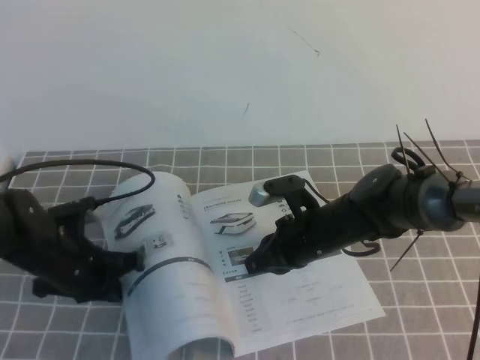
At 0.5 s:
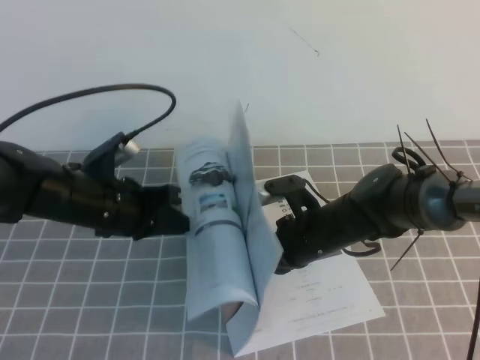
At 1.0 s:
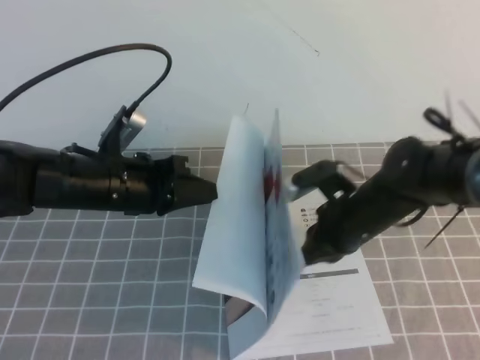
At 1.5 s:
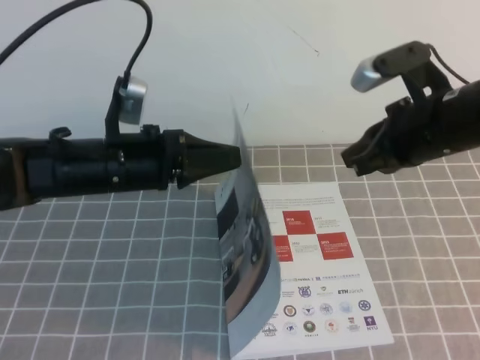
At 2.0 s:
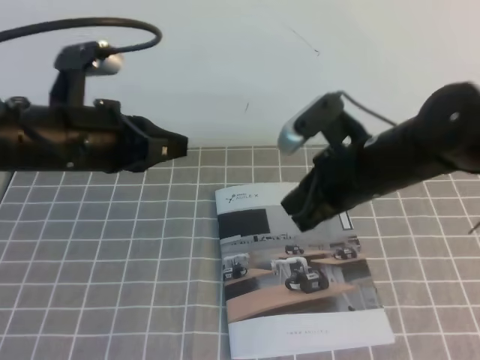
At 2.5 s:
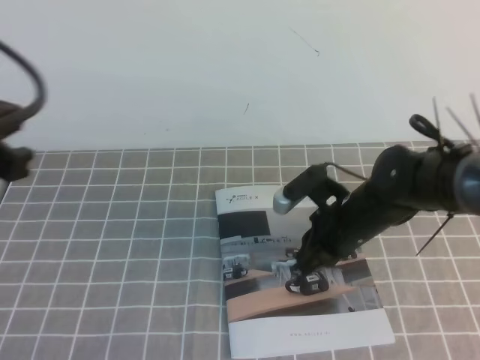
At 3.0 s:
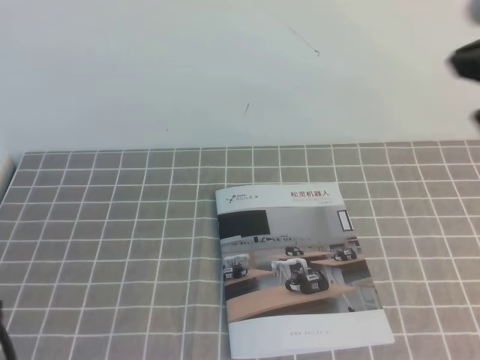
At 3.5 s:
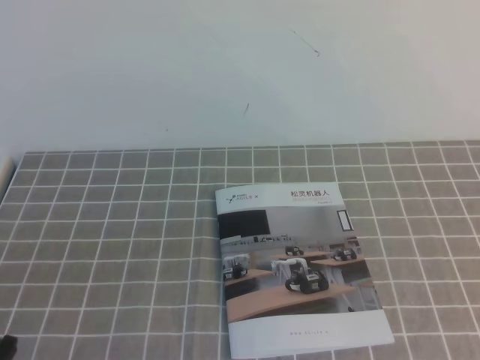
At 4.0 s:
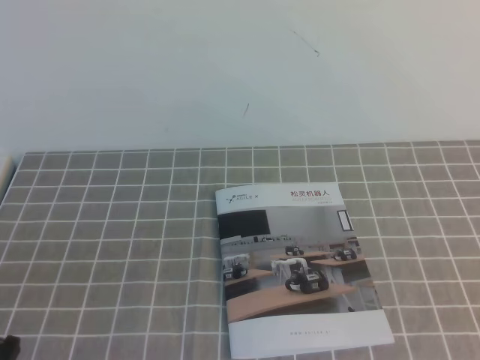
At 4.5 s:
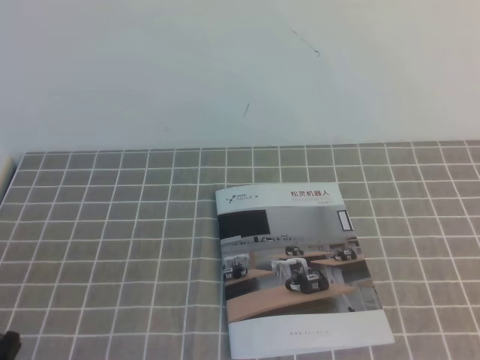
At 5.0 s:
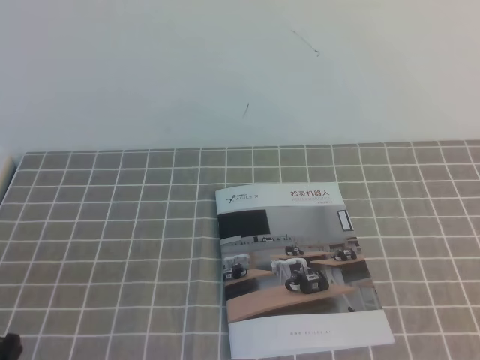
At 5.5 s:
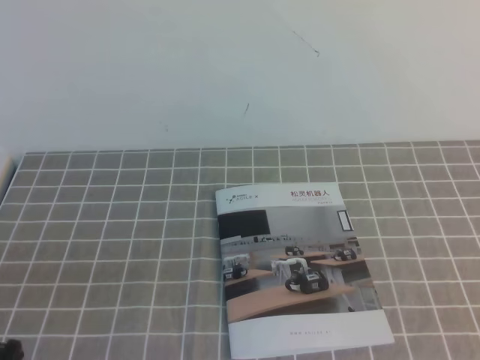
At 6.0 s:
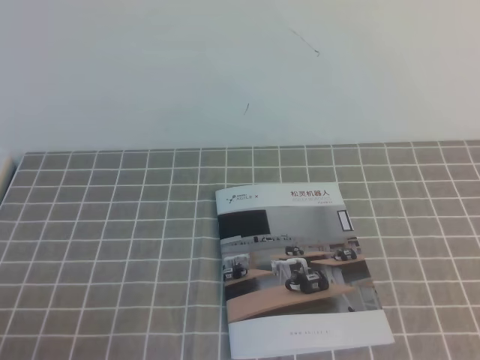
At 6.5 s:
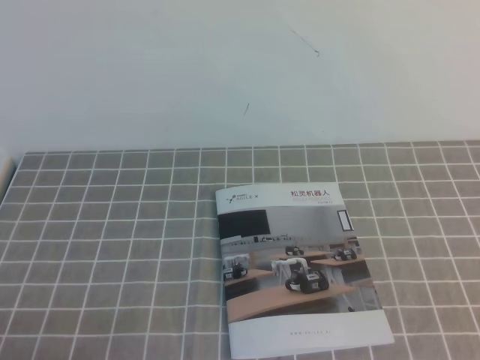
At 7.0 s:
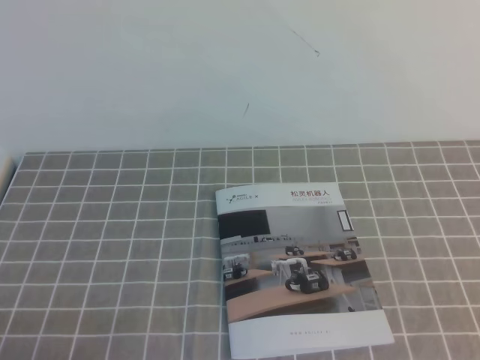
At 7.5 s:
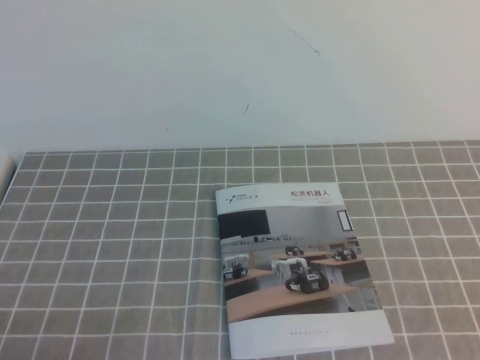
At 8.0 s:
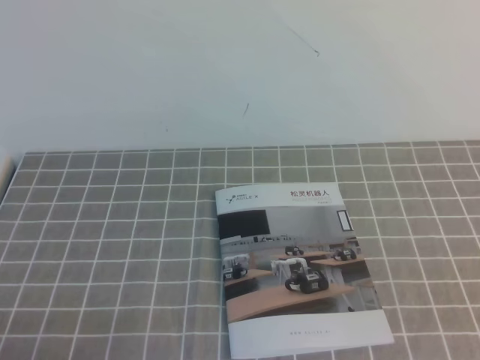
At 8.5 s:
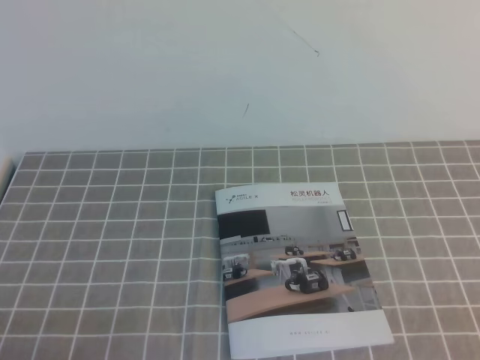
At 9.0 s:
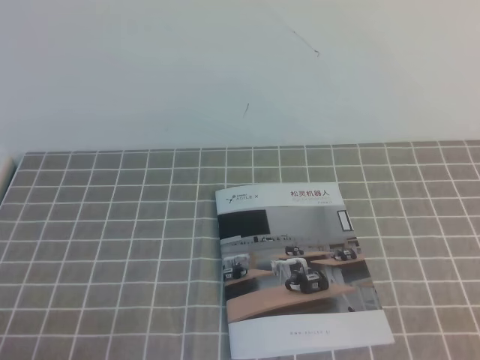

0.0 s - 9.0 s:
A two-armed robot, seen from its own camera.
Task of the whole recording: on the grey tablecloth, hold the book with one hand and close it with the other.
Step, 0.0 s - 9.0 s: Close the open book.
0.0 s - 2.0 s: The two grippers go about 15 cm upward.
2.0 s - 4.5 s: The left gripper heads backward and to the left, covering approximately 20 cm; the right gripper is displaced backward and to the right by about 35 cm.

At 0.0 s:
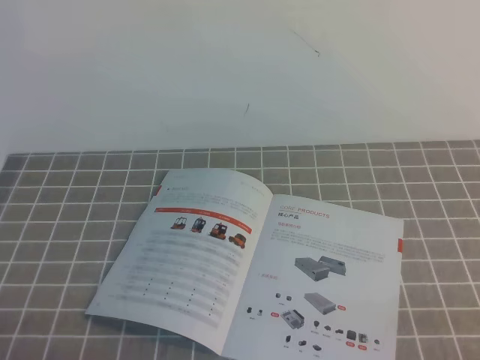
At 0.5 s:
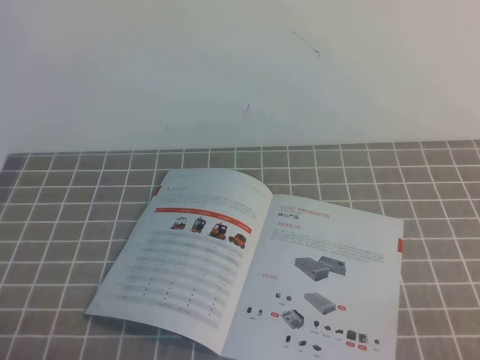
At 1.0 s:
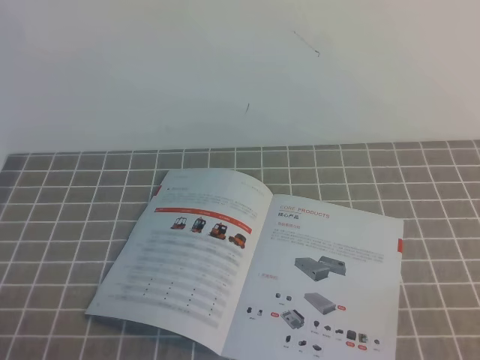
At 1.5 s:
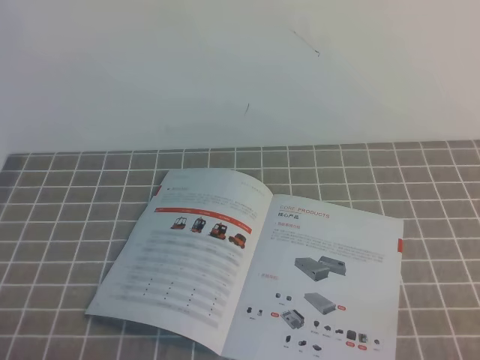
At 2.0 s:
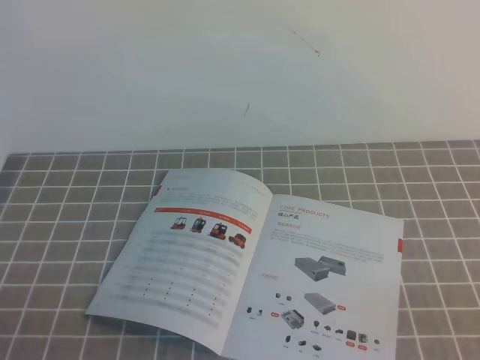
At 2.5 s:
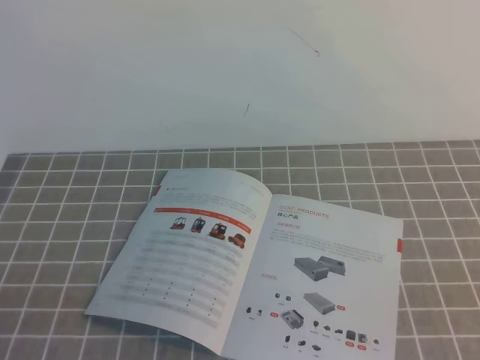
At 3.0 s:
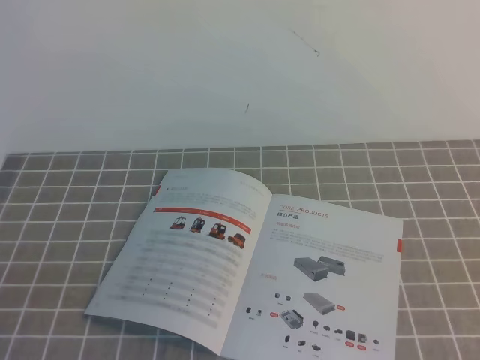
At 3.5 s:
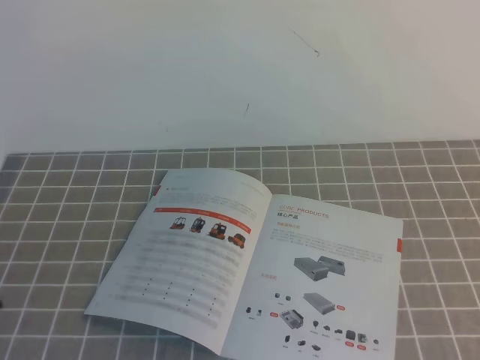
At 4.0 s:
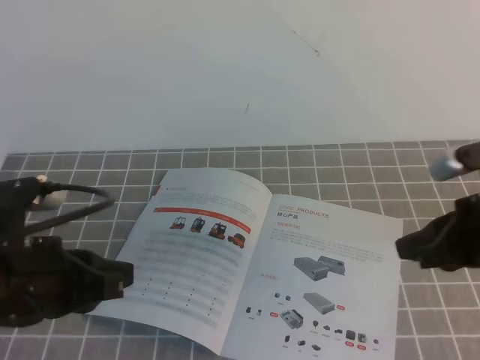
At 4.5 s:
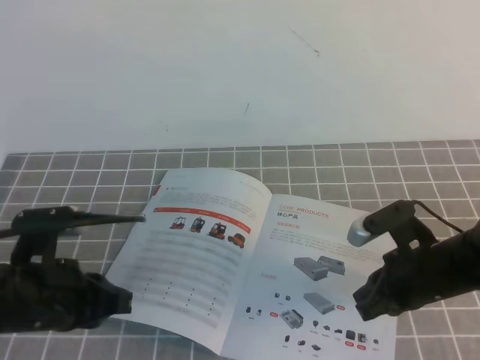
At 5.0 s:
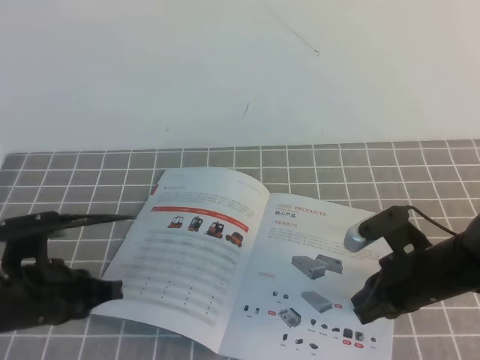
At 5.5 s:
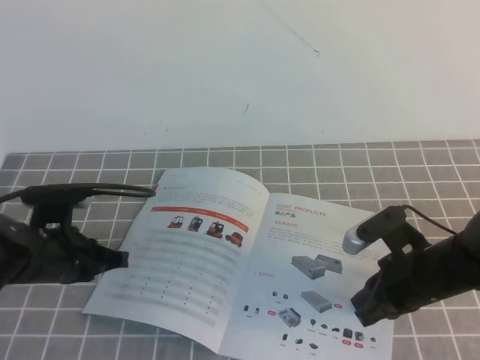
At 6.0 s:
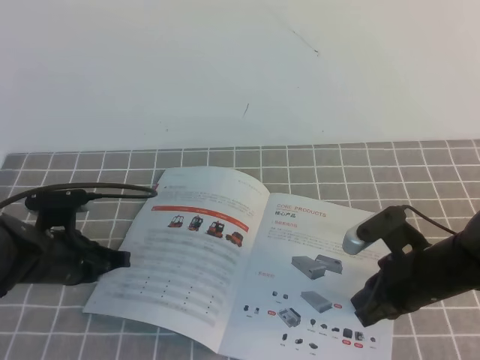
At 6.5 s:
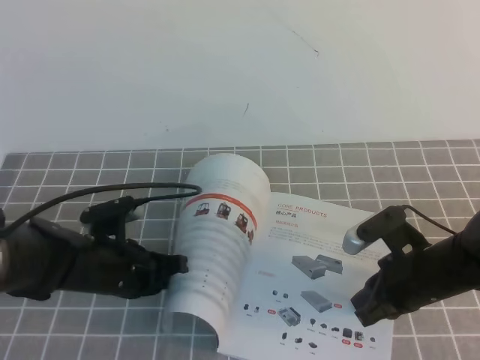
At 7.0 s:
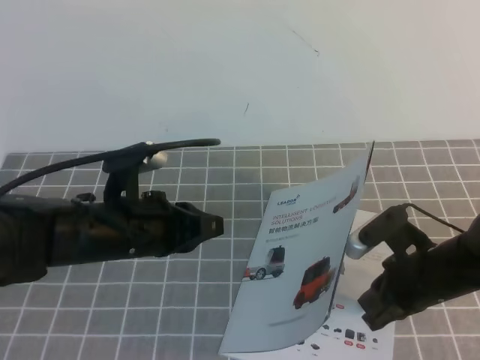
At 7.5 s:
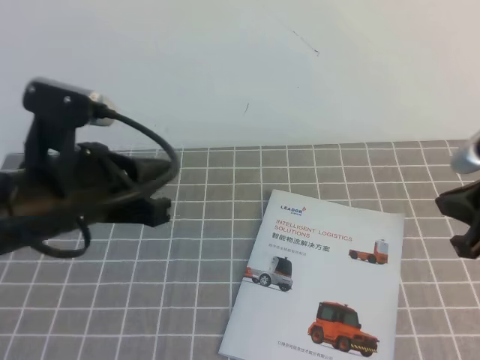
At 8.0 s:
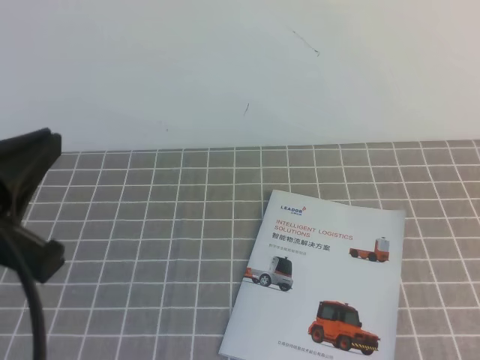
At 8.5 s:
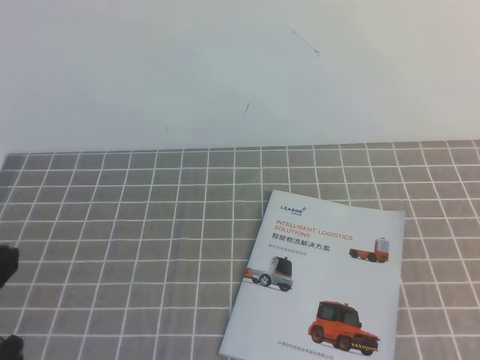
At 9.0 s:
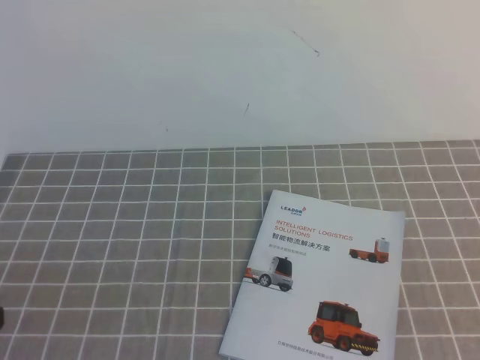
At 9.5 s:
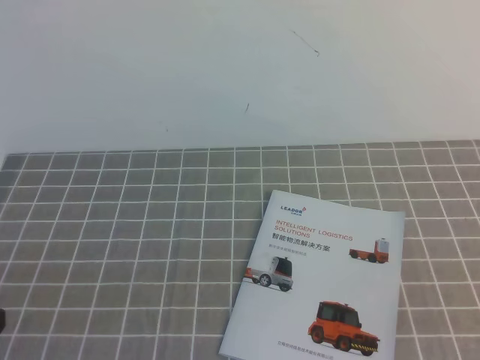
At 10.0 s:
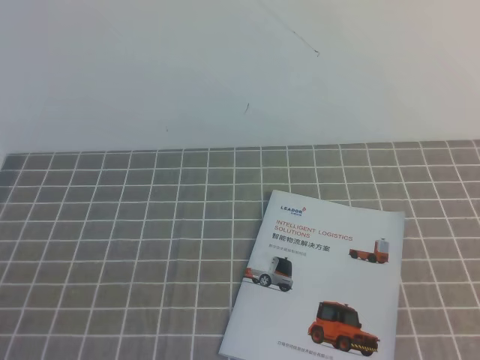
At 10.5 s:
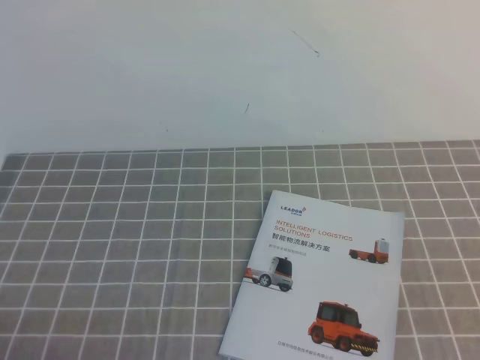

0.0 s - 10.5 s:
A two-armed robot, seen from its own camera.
Task of the whole recording: on the grey tablecloth, hold the book with one hand and close it with the other.
2.0 s - 4.0 s: The right gripper heads forward, covering roughly 20 cm. Meanwhile the left gripper shifts roughly 15 cm forward and upward.
4.0 s - 6.5 s: The right gripper travels downward and to the left by roughly 15 cm, while the left gripper is displaced downward and forward by roughly 20 cm.
6.5 s - 8.5 s: The left gripper heads backward and upward, covering about 30 cm; the right gripper moves upward, backward and to the right, some 30 cm.
8.5 s - 10.5 s: The left gripper goes approximately 15 cm downward.
